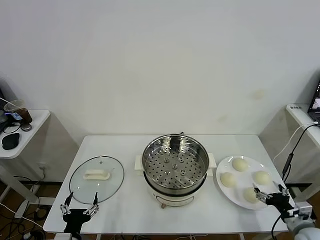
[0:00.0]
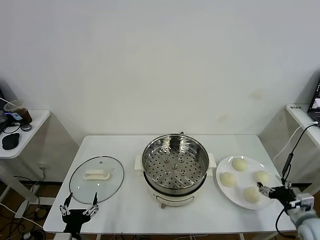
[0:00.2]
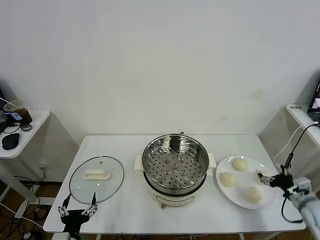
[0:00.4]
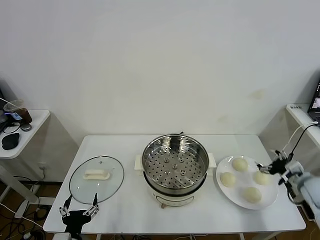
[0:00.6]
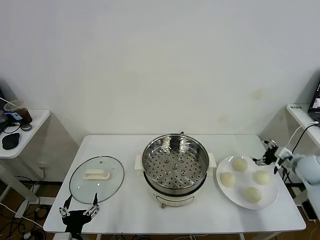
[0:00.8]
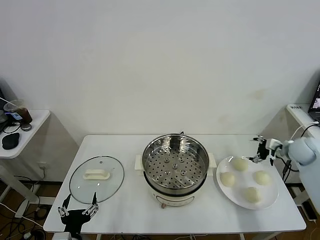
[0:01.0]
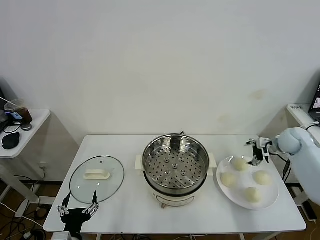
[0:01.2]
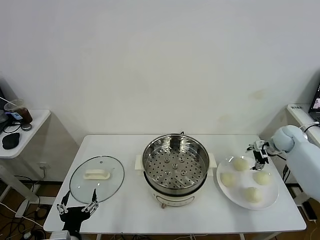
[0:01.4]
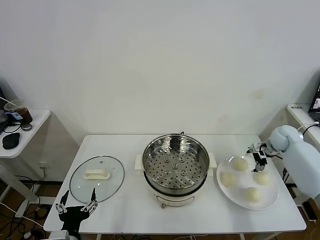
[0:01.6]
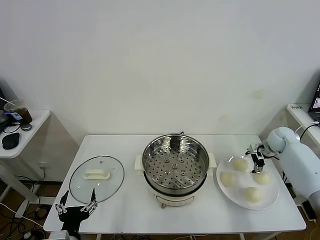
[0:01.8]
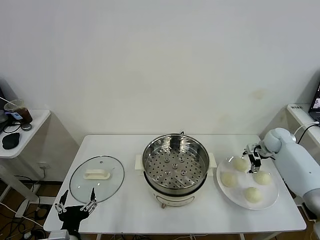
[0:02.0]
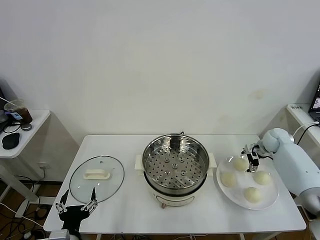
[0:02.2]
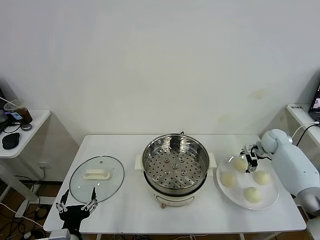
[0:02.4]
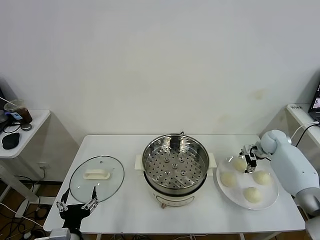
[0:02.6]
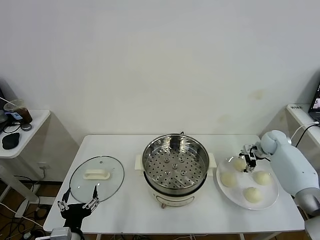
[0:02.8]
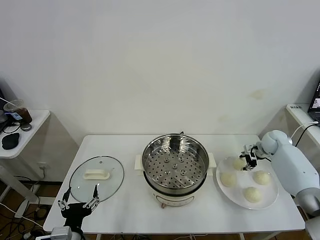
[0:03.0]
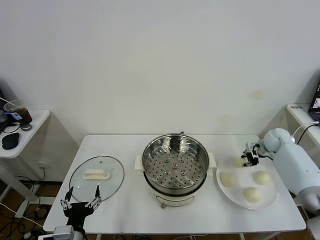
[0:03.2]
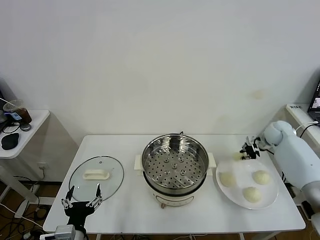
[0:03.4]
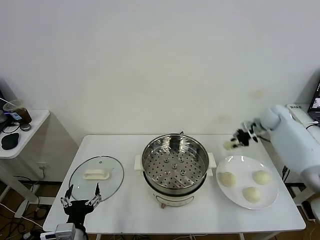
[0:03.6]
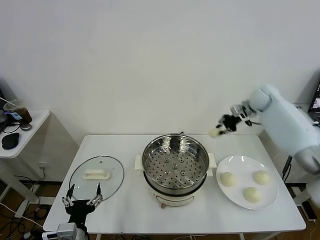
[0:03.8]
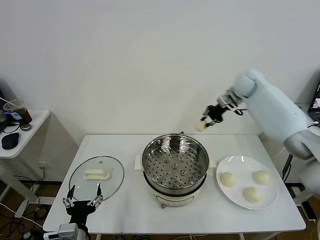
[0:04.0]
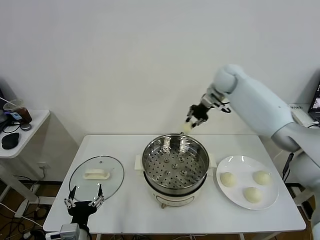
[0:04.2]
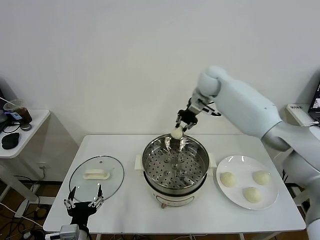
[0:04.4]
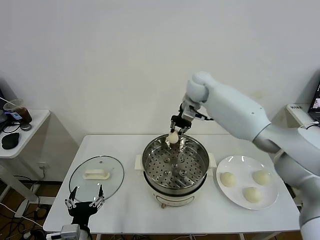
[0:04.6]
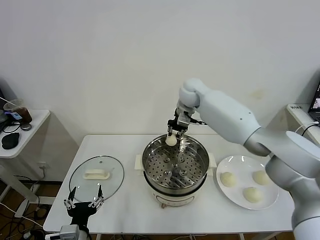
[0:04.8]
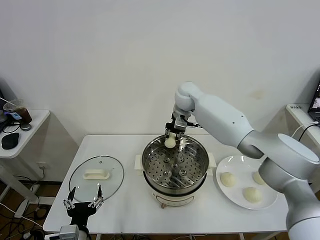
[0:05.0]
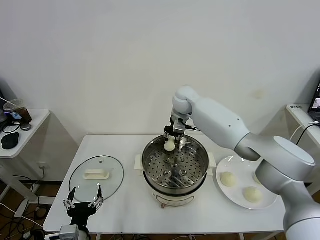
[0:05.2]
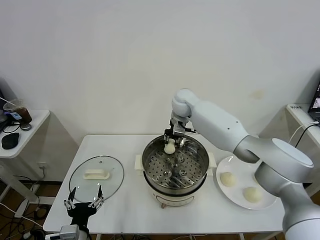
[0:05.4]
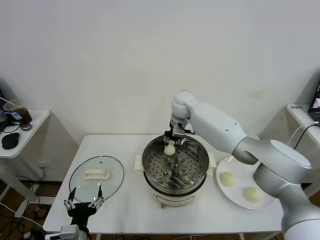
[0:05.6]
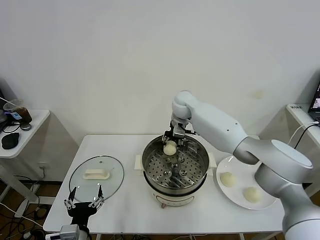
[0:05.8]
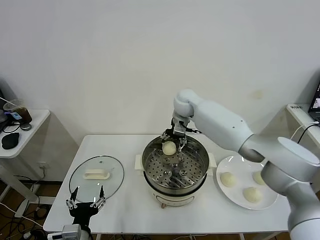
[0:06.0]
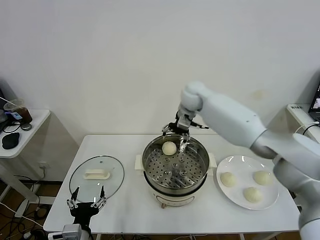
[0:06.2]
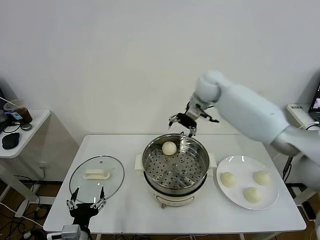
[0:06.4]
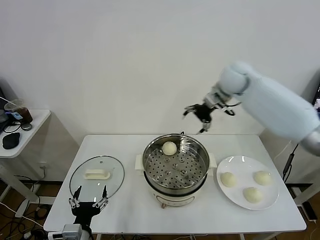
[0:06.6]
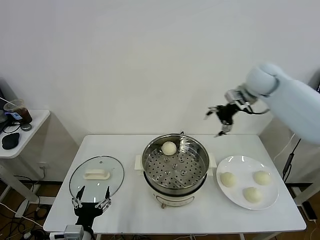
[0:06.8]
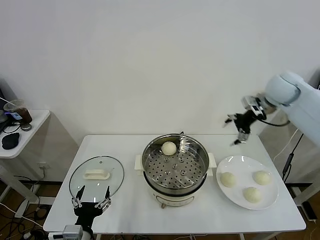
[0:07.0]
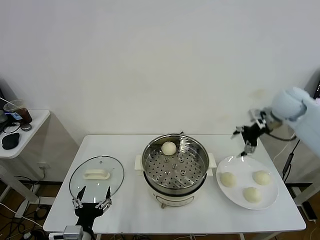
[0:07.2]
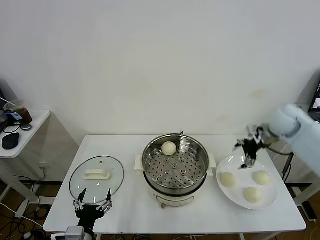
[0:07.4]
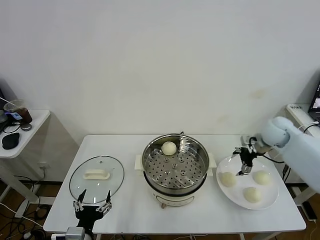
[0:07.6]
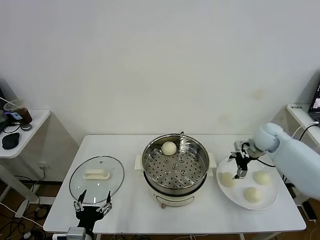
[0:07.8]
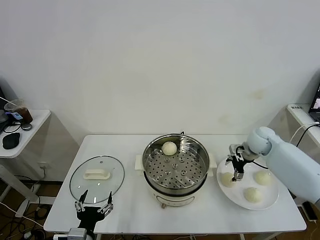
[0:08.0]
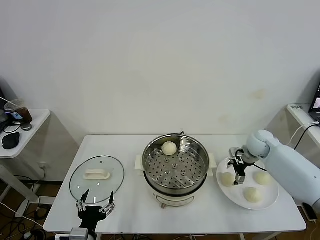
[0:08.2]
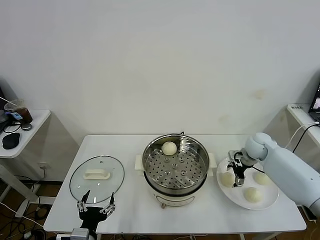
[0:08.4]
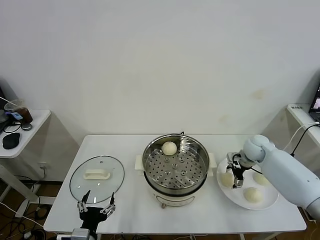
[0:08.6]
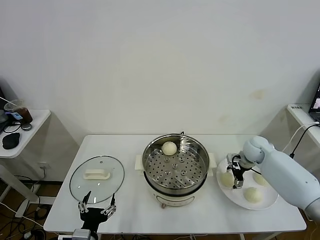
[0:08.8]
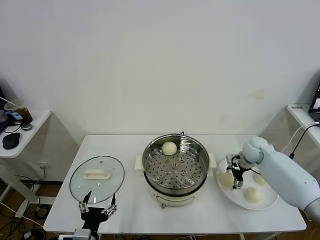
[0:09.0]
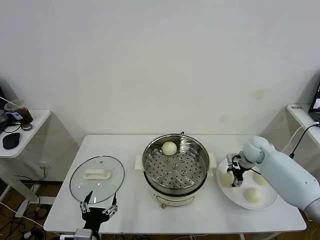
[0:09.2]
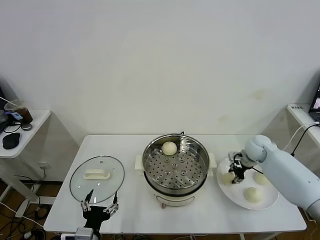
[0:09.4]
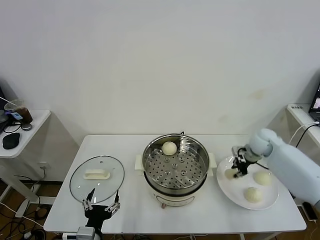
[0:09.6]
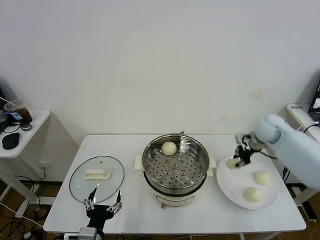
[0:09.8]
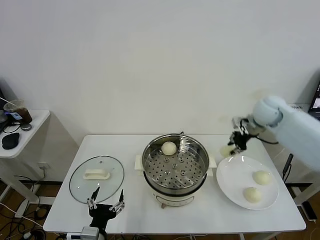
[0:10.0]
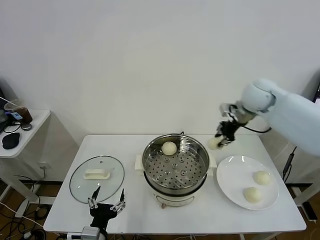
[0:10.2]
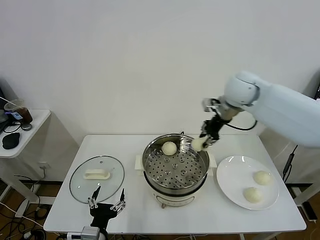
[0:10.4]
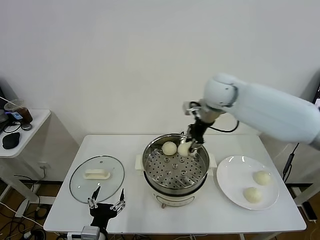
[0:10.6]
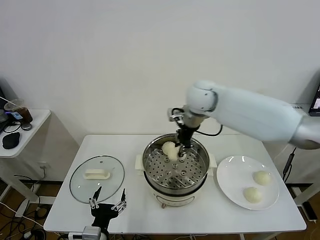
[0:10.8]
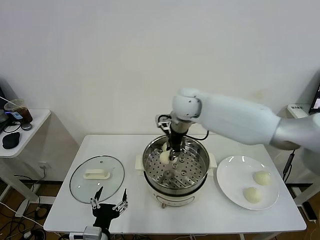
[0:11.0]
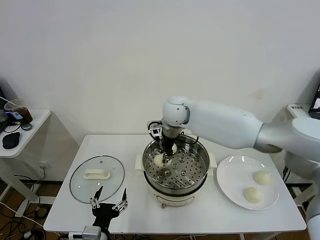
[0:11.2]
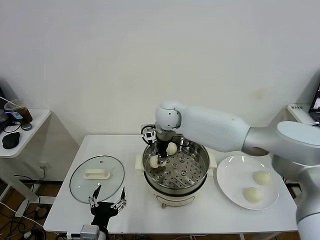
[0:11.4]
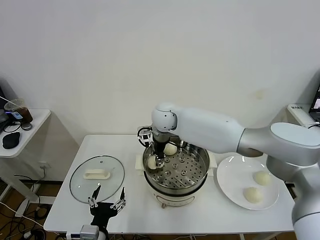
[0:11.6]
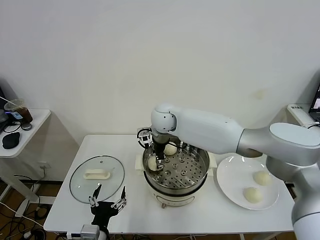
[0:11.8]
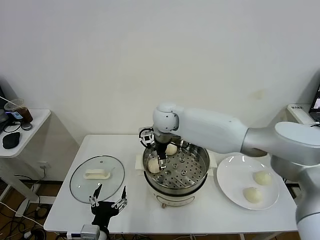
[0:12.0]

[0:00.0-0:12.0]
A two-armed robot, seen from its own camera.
Task of the whole recording: take steamed baozi put them in steamer.
Step, 0.0 to 3.0 s: Grasp the baozi in the plate with right gripper.
Step, 3.4 to 6.0 s: Place the baozi on the steamer with right gripper.
Step, 6.2 to 9.4 s: Grasp the baozi in the plate with right gripper.
Step, 9.6 to 12.0 s: Place the baozi on the steamer with right gripper.
1.6 to 3.0 s: The right gripper closes its fingers.
3.0 to 4.4 s: The right gripper moves to the left and upward, some 40 cm.
4.4 to 6.0 s: The right gripper opens its fingers.
6.0 to 7.6 s: The right gripper is displaced to the right by approximately 30 cm.
7.6 to 9.0 s: The right gripper travels downward by roughly 10 cm.
9.0 to 10.4 s: The right gripper travels upward and to the left by some 30 cm, and closes its fingers.
10.4 to 12.0 s: The right gripper travels to the left and downward by roughly 20 cm, and opens.

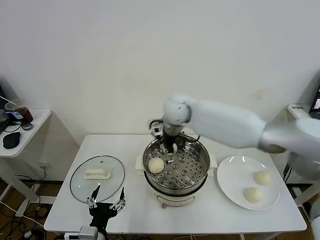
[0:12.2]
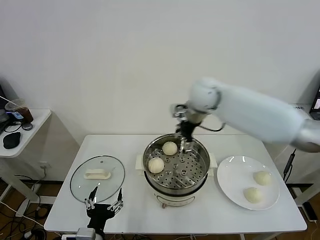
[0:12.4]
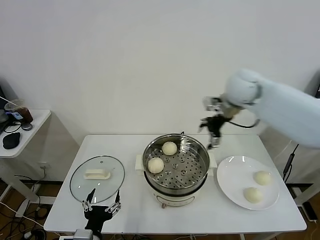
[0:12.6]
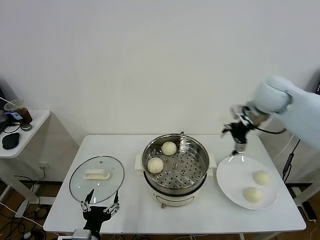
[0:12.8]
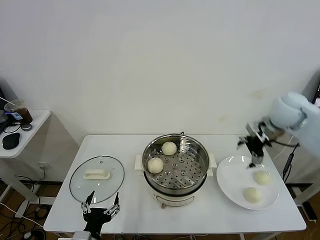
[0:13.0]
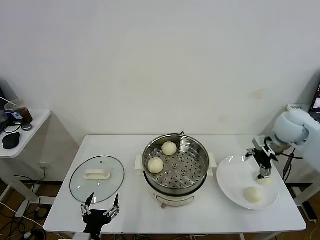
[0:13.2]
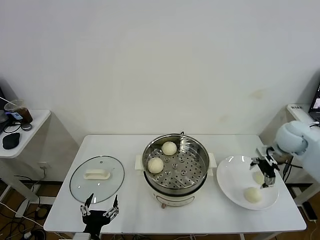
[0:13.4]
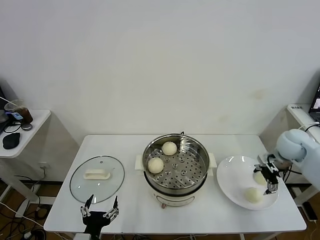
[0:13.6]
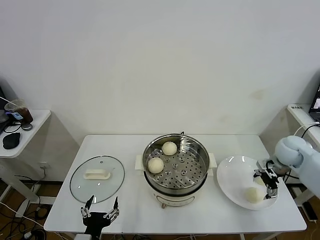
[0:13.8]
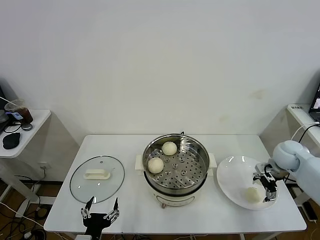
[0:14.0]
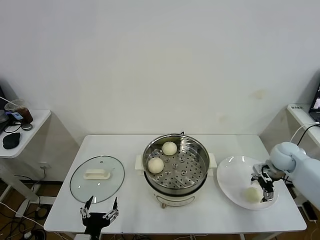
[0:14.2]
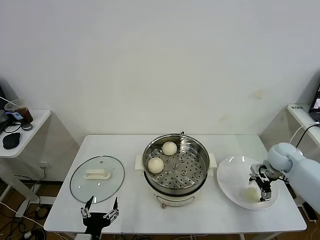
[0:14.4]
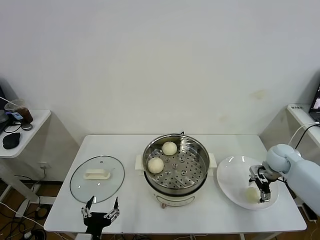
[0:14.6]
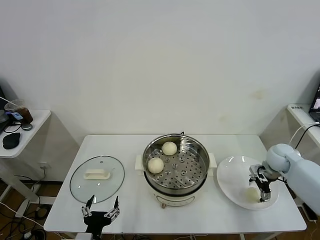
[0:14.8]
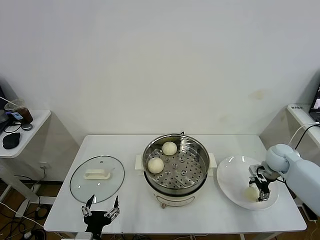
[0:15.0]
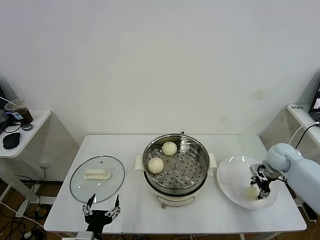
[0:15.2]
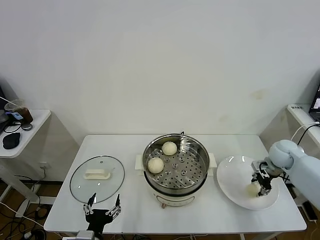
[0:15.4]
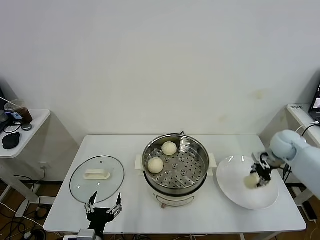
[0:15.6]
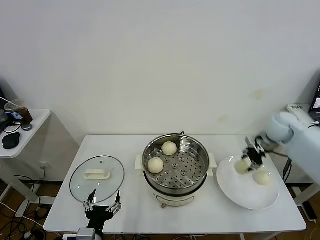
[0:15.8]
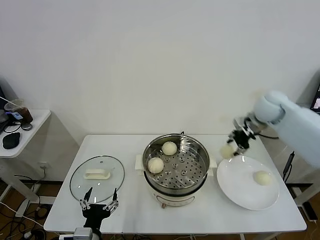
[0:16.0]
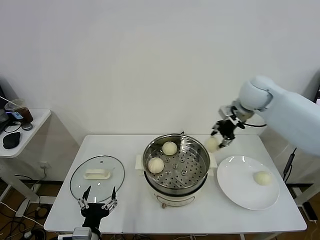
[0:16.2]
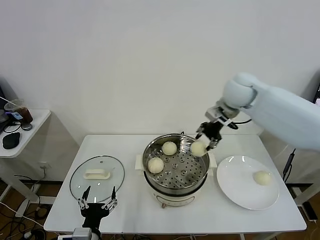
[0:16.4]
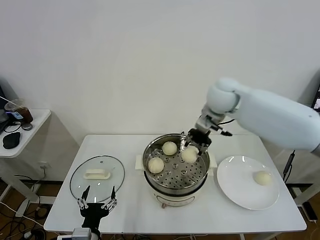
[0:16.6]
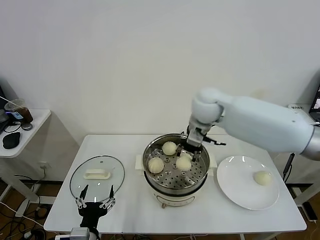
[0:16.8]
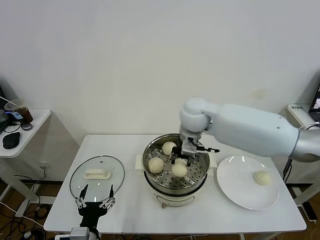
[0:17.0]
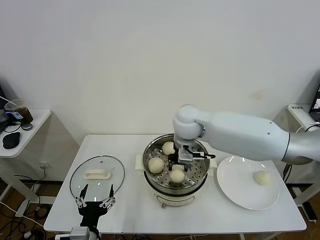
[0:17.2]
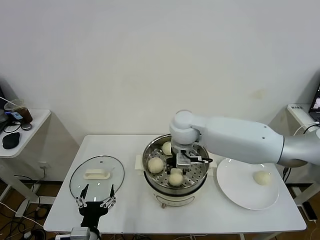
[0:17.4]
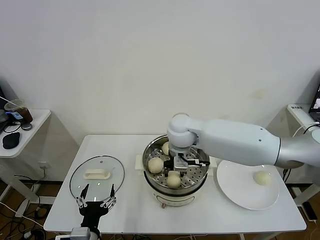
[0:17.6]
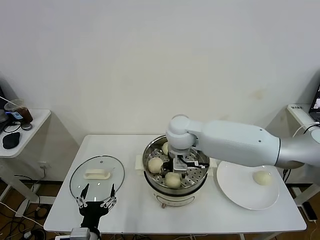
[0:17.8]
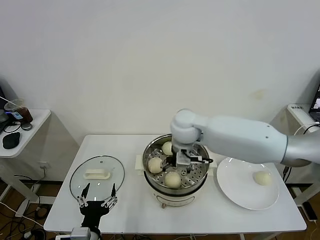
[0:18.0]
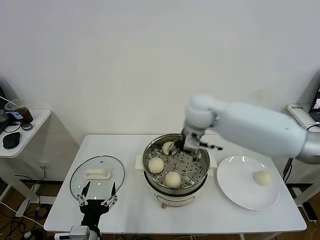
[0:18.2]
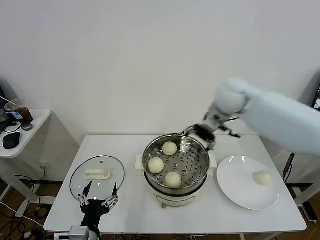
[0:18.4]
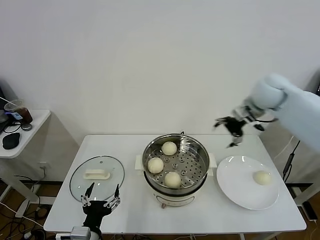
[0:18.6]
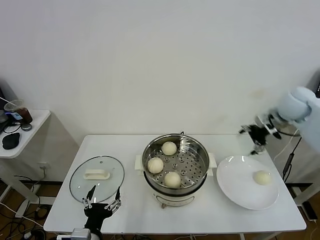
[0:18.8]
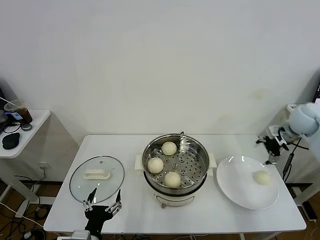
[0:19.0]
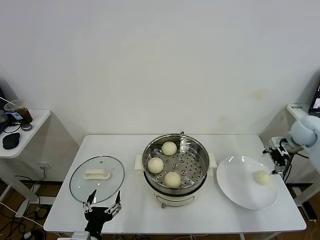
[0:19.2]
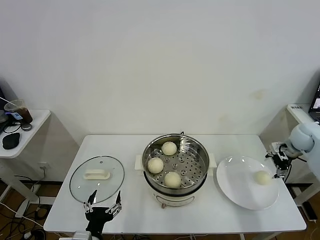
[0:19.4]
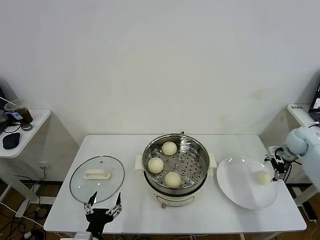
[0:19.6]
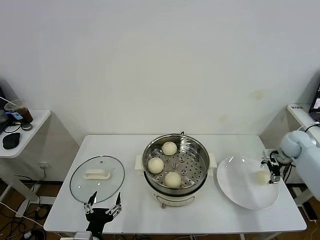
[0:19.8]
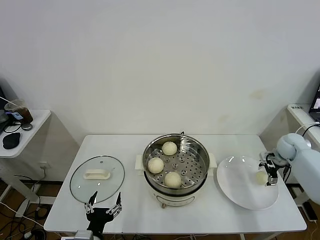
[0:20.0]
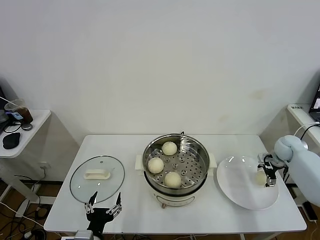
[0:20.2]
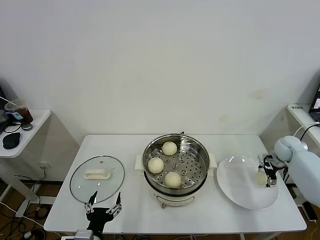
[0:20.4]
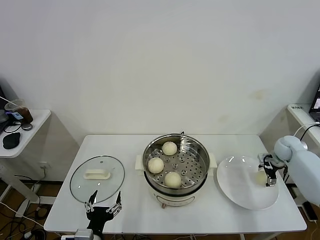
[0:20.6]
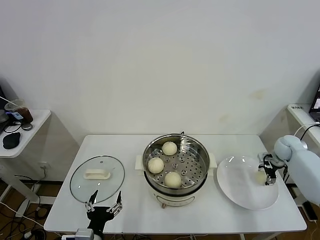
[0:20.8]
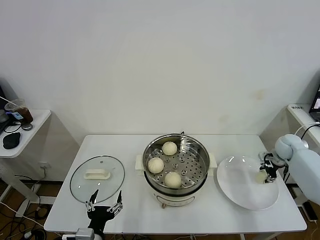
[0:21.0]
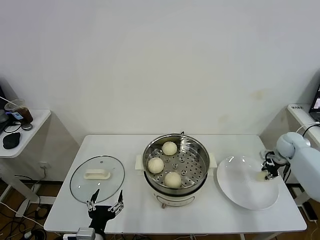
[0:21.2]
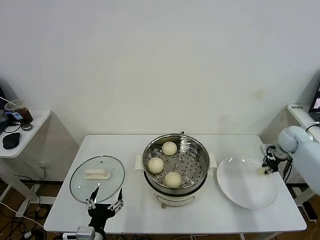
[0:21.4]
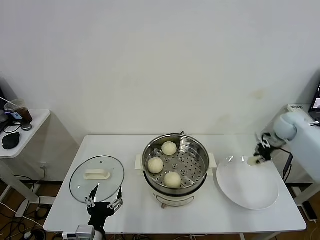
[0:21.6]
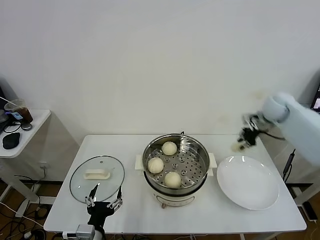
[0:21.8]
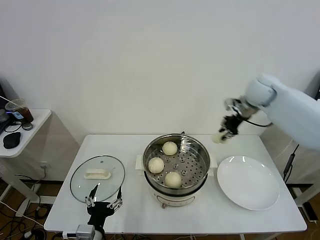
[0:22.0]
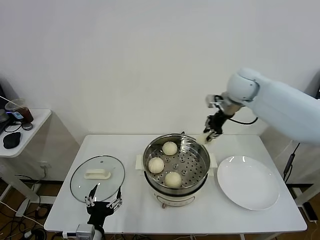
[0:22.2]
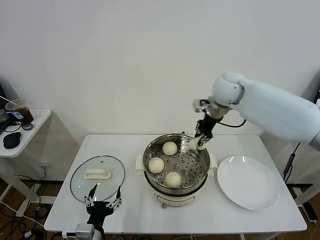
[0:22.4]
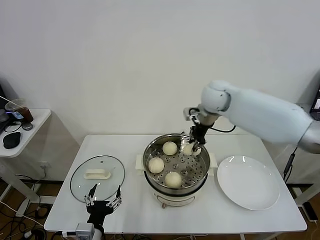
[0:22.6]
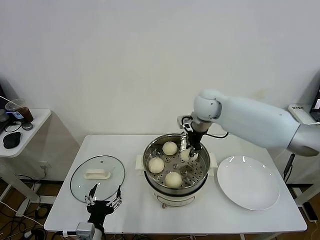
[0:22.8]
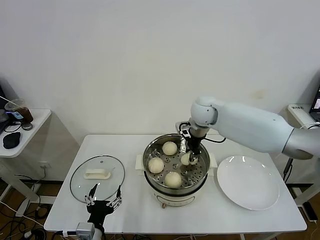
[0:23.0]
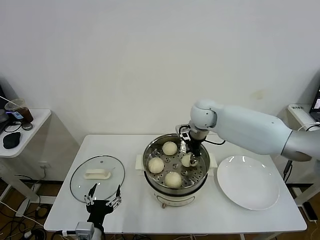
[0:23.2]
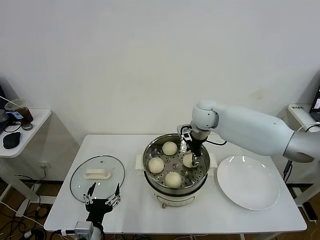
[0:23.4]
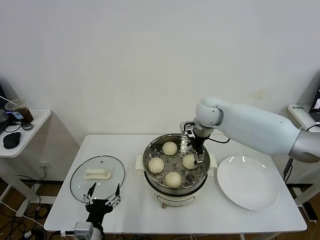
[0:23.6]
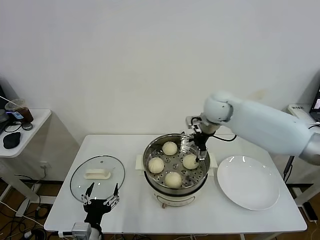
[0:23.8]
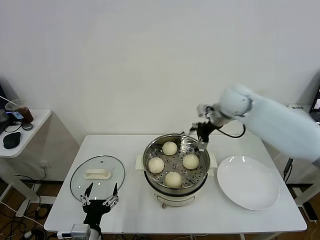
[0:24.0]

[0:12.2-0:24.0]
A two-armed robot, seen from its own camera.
Task of the whole recording: take steamed baozi put them in steamer.
Step, 12.2 to 15.2 s: Grasp the baozi in the plate with right gripper.
Step, 15.6 to 17.8 s: Place the baozi on the steamer with right gripper.
Step, 18.0 to 21.2 s: Grasp the baozi in the plate with right gripper.
Step, 21.4 to 23.6 s: Place the baozi on the steamer with right gripper.
12.2 to 13.6 s: The right gripper moves to the right, some 35 cm.
13.6 to 15.2 s: The right gripper goes roughly 5 cm downward, and closes up.
15.2 to 16.6 s: The right gripper is displaced to the left and upward by approximately 35 cm.
16.6 to 18.2 s: The right gripper reaches about 10 cm to the left, then returns, and opens its fingers.
18.2 to 19.6 s: The right gripper heads to the right and downward, covering approximately 40 cm.
19.6 to 21.0 s: The right gripper changes place by about 5 cm, and closes up.
21.0 to 22.6 s: The right gripper moves to the left and upward, about 40 cm, and closes up.
22.6 to 24.0 s: The right gripper shifts some 5 cm to the right, and opens its fingers.
